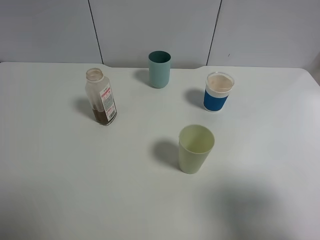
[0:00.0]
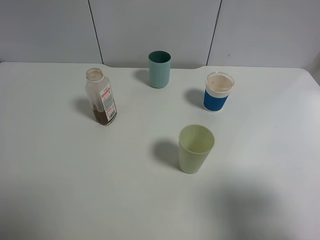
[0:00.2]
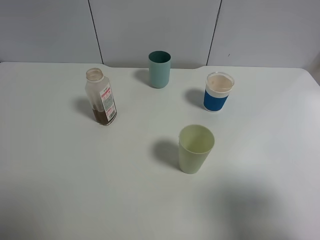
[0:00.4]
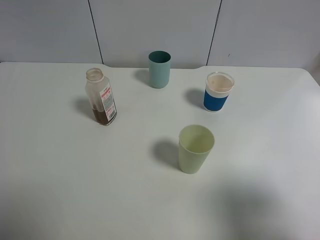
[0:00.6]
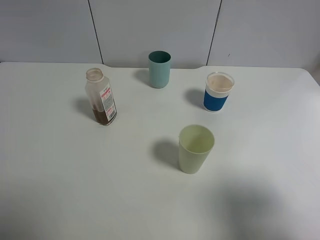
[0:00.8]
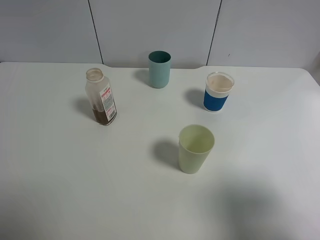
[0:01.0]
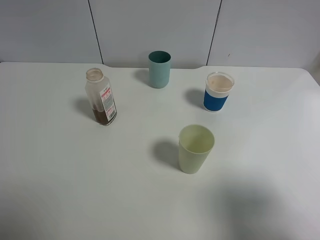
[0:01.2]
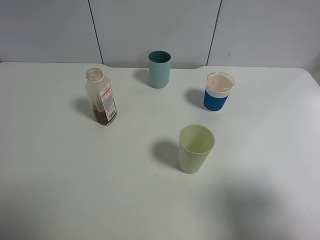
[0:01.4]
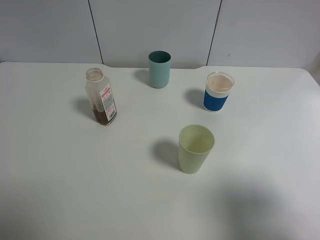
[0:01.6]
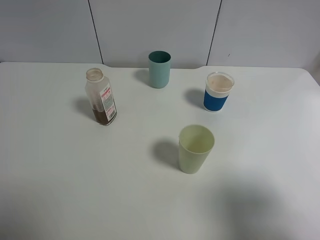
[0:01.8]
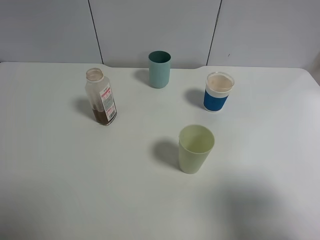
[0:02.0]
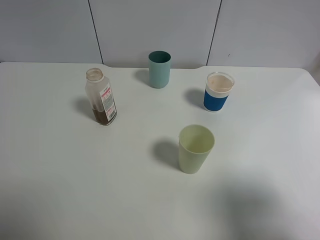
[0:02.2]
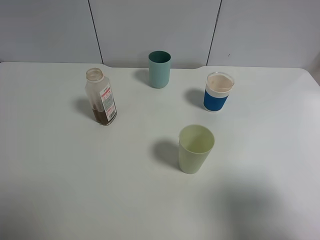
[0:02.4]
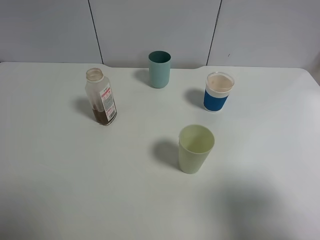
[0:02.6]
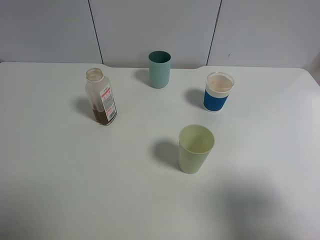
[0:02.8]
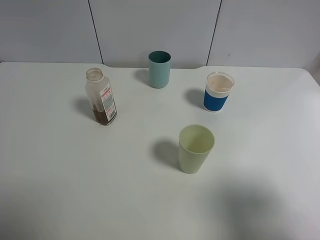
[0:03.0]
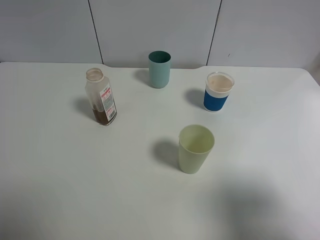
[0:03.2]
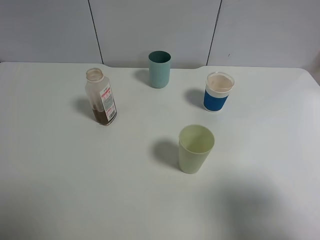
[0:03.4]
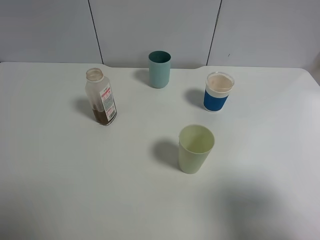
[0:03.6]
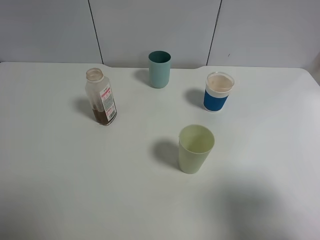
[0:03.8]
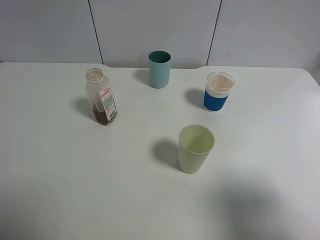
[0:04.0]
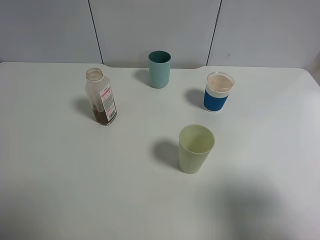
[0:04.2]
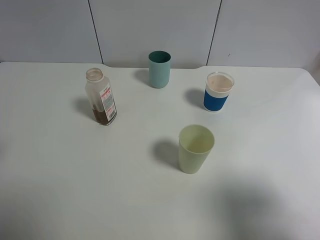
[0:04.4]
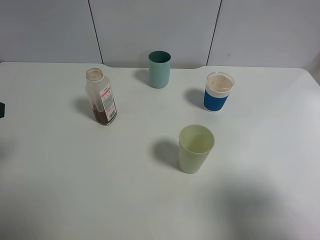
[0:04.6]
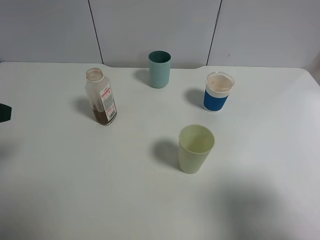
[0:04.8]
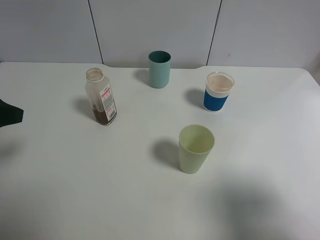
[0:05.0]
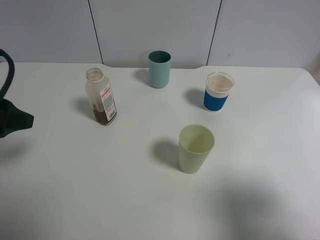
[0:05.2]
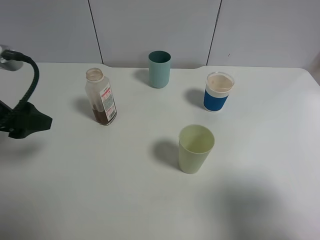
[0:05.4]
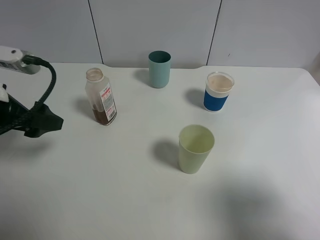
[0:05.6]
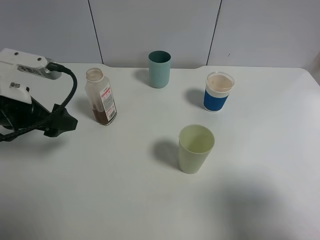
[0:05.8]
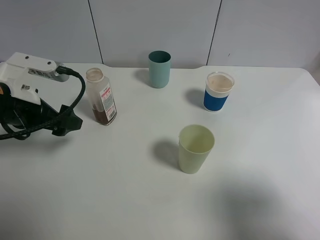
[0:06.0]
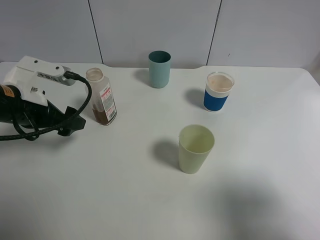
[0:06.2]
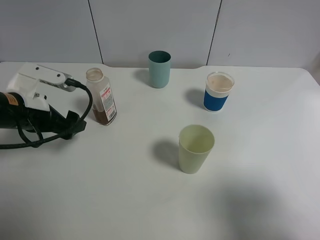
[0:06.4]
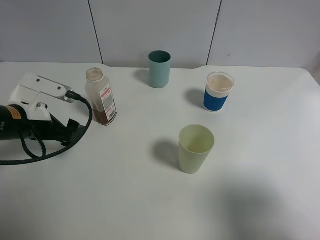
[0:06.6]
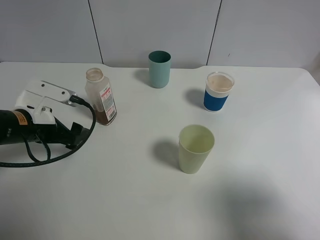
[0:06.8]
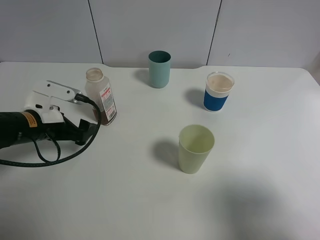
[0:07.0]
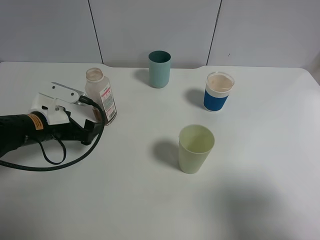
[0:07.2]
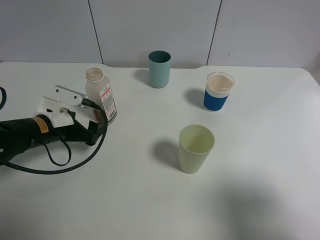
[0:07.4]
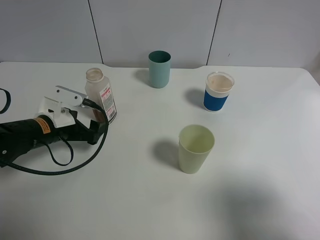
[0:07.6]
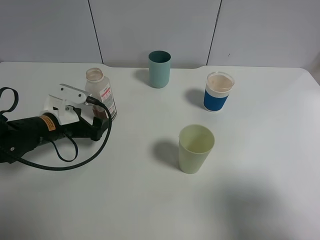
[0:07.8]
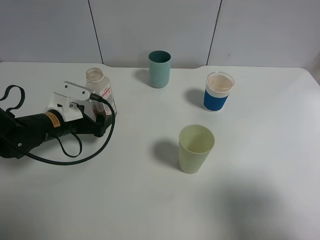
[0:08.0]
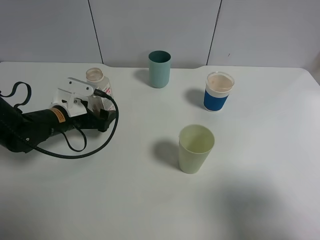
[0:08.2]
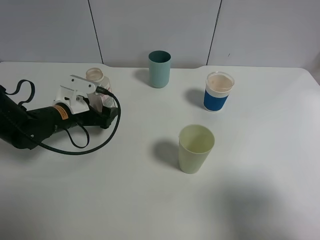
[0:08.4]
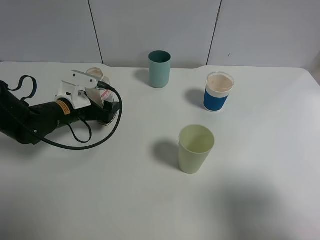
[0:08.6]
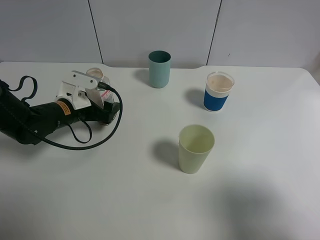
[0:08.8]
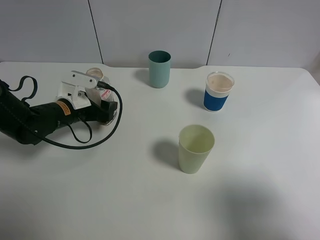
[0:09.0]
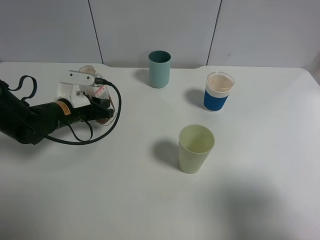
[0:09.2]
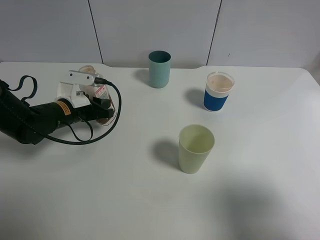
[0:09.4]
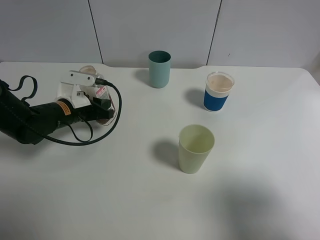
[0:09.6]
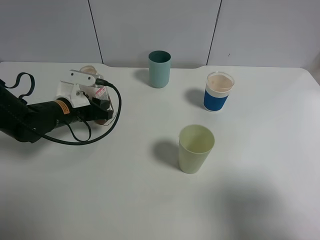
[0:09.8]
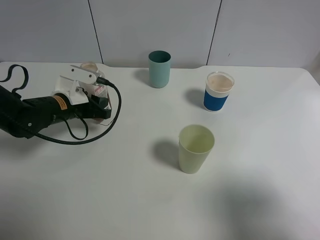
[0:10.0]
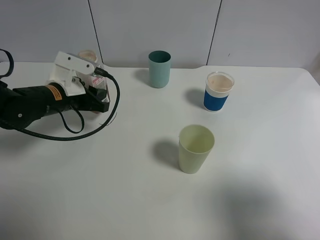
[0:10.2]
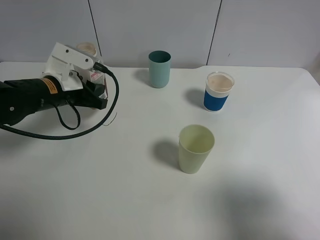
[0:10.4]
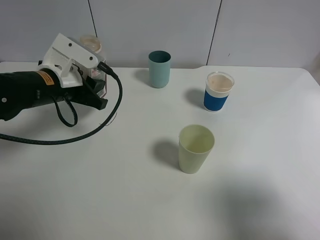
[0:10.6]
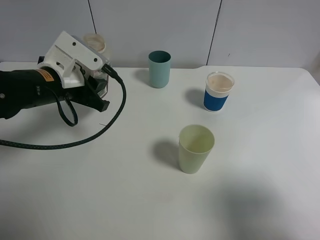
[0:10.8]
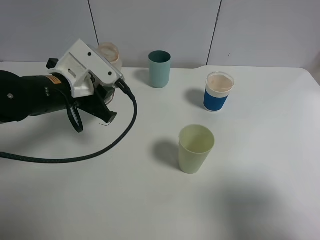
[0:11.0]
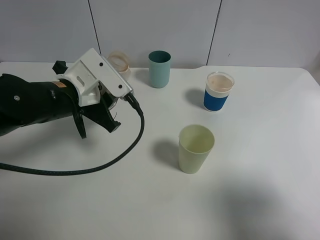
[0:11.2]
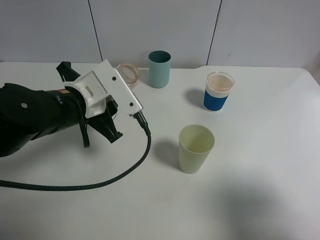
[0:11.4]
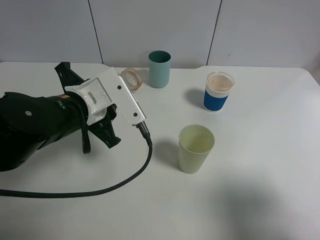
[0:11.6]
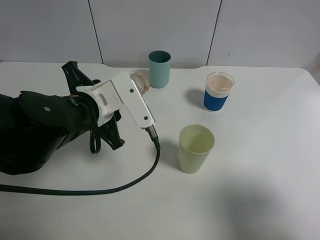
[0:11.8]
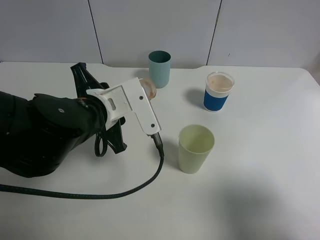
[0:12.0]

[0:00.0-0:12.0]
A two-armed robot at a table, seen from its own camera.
Task of the whole recording: use a gripper to hold the bottle of the drink and pour it into a random cup.
Step, 0:00.0 to 0:09.2: Grasp the cranberry juice bottle with the left gripper.
0:00.0 to 0:03.0: The two grippers keep their place.
0:04.4 to 0:06.0: The left gripper moves forward, downward and to the right, approximately 15 cm.
0:06.0 to 0:07.6: The left gripper is displaced downward by about 10 cm.
0:07.6 to 0:09.0: The left gripper heads forward, covering some 5 cm, and closes.
0:09.0 to 0:10.4: The left gripper is displaced upward by approximately 5 cm, and closes its fingers.
0:10.4 to 0:12.0: The left gripper heads to the right and backward, covering approximately 15 cm.

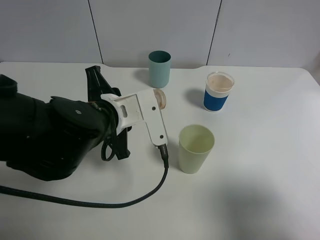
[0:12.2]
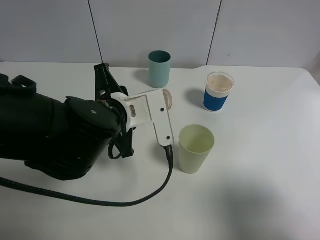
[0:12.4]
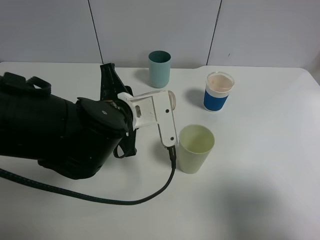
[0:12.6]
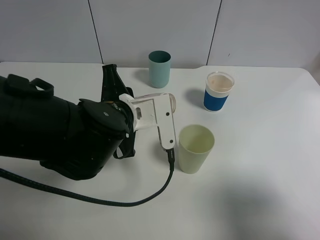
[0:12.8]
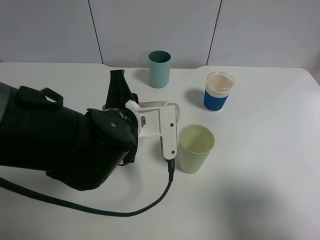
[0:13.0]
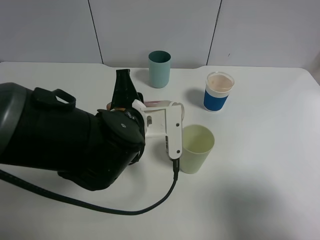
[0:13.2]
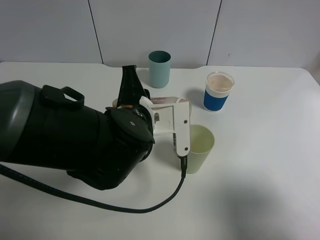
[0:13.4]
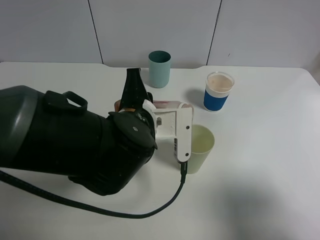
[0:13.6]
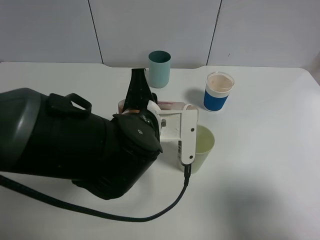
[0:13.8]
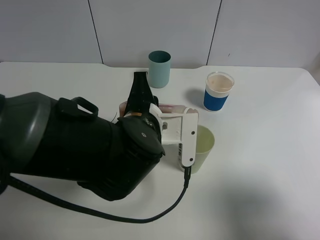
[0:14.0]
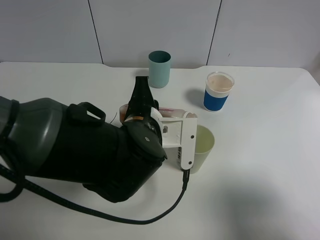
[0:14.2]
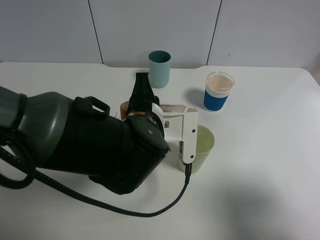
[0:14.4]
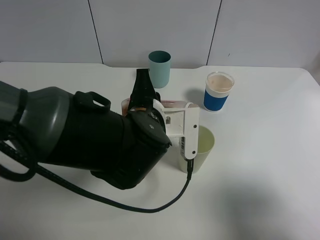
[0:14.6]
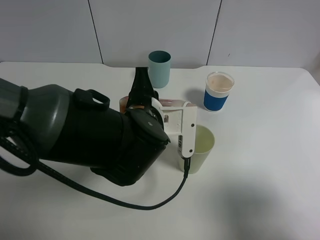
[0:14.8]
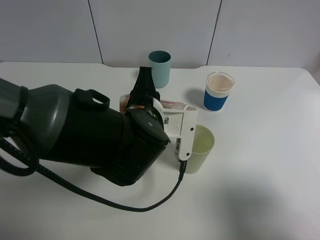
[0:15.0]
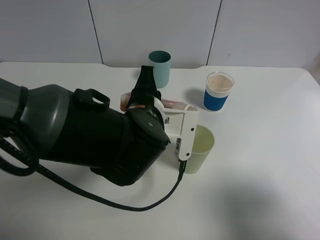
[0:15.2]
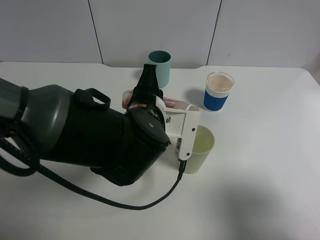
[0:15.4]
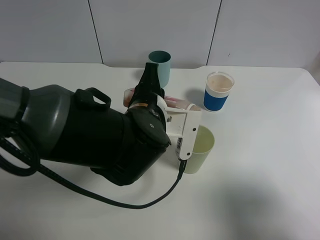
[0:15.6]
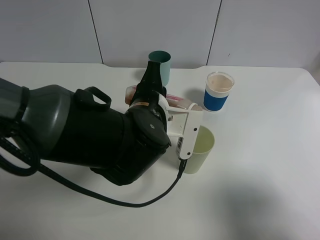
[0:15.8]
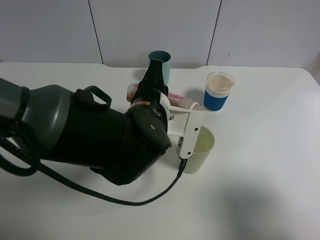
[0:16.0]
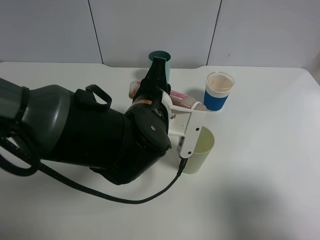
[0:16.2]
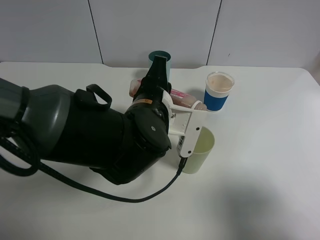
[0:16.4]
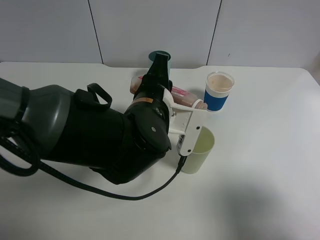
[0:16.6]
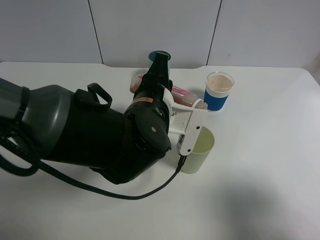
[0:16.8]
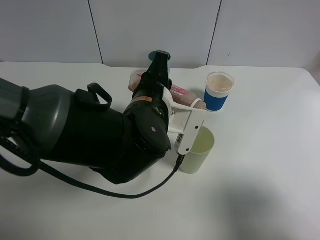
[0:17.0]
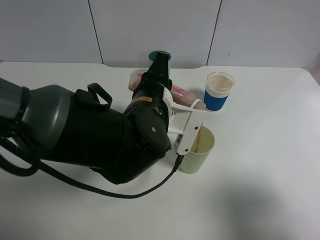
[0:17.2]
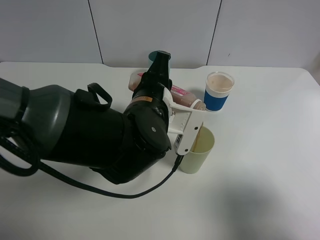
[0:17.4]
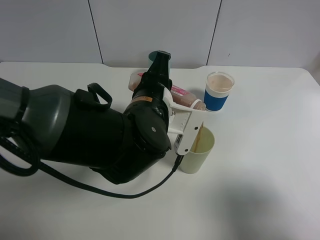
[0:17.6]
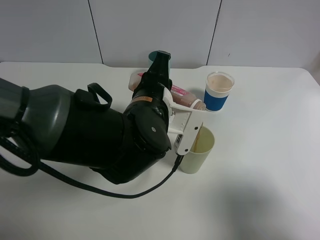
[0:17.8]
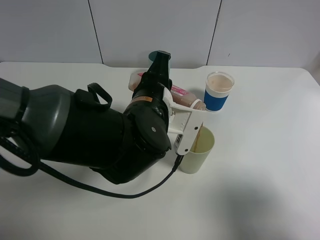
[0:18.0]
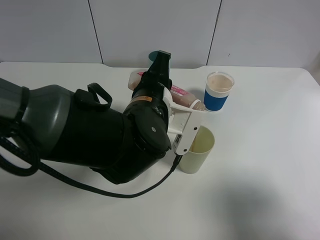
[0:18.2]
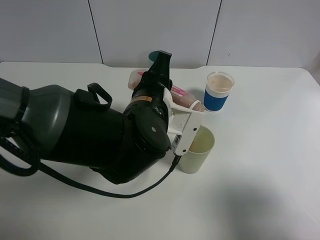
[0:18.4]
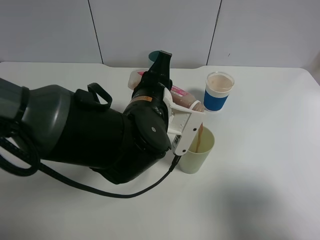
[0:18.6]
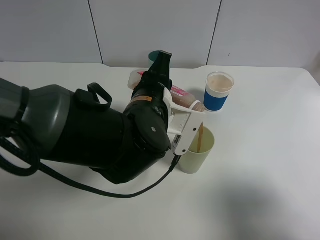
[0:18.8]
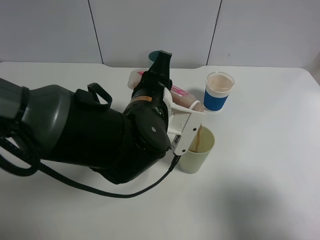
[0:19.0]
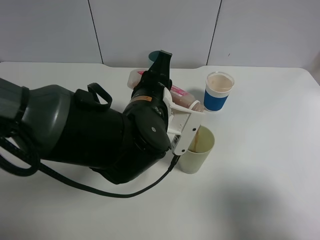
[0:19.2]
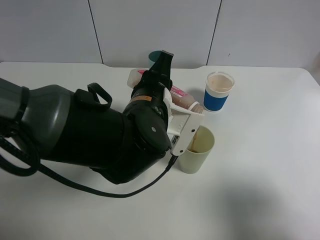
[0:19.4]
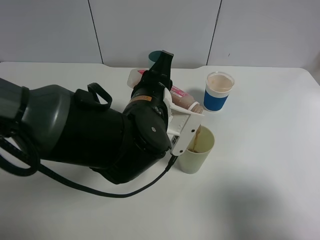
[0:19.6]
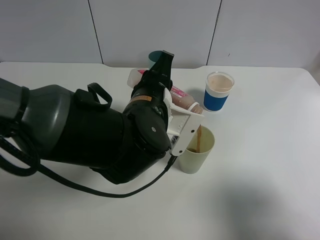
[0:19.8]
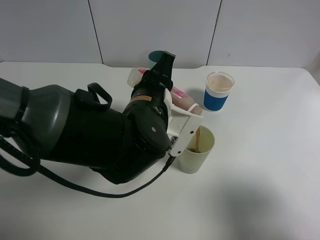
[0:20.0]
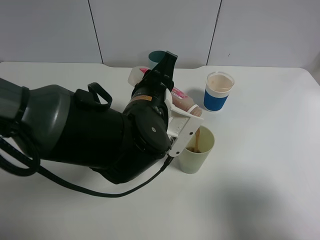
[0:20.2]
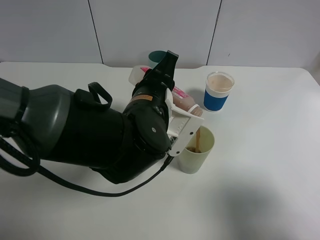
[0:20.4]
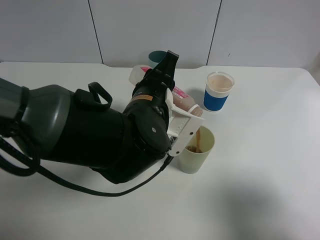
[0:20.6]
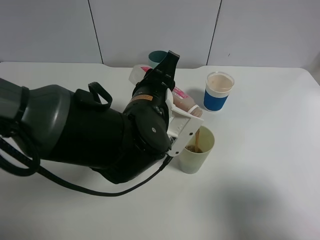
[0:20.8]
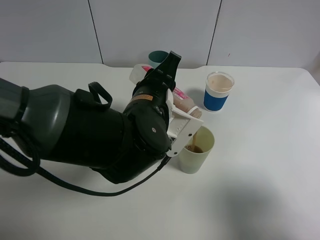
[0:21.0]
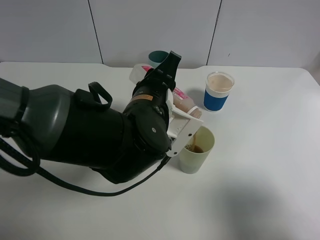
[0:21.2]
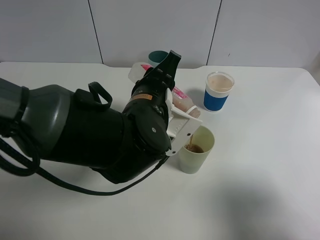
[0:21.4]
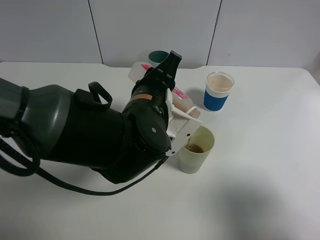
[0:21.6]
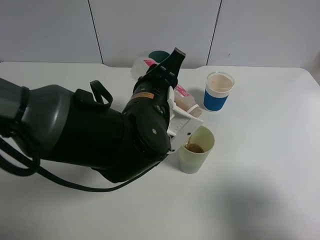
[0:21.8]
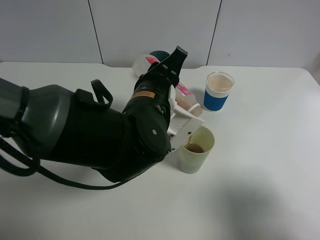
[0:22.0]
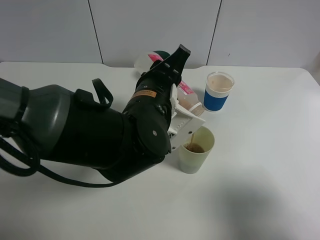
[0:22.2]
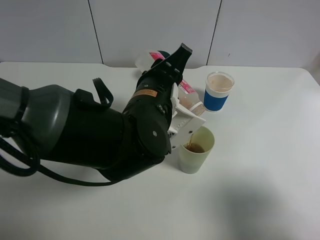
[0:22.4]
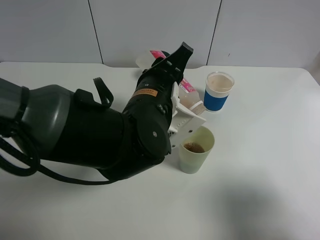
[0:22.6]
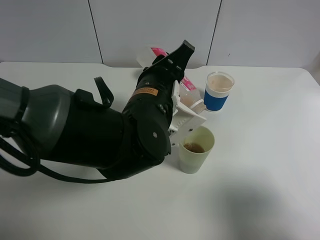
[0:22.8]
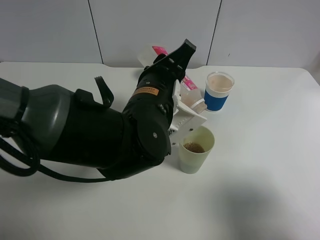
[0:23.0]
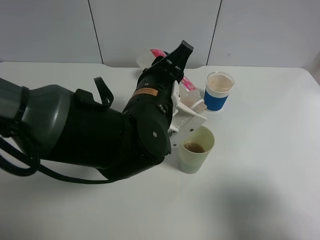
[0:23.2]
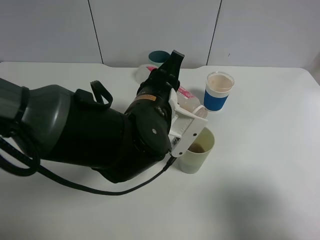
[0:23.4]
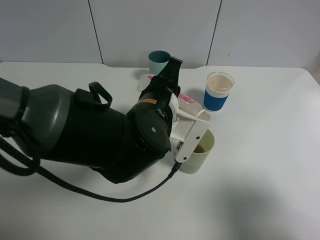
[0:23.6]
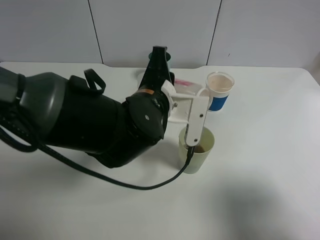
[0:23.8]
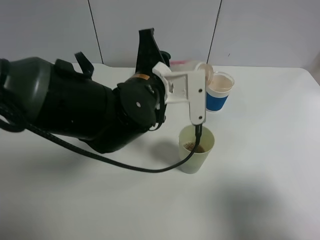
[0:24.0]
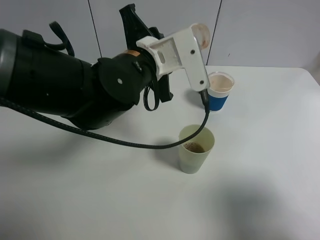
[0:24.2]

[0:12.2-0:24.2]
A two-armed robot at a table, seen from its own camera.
Task of the whole recording: use a gripper to hold the bottle of the drink and pour it into a random cup.
Step, 0:12.2 to 0:23.4: Pour the cranberry juice into the cyan cup with the left gripper.
0:12.2 to 0:13.8: The left gripper is displaced to the right by about 5 cm.
0:13.8 to 0:16.6: The grippers move only a little.
0:16.6 to 0:18.2: The two grippers keep their place.
0:18.2 to 0:21.2: The grippers make only small movements.
0:21.2 to 0:22.6: The grippers make only small movements.
0:22.6 to 0:24.2: The left gripper ends up about 5 cm from where it was.
